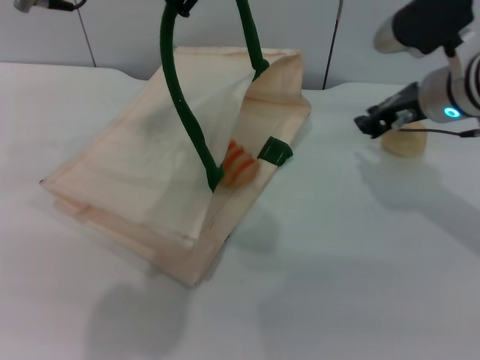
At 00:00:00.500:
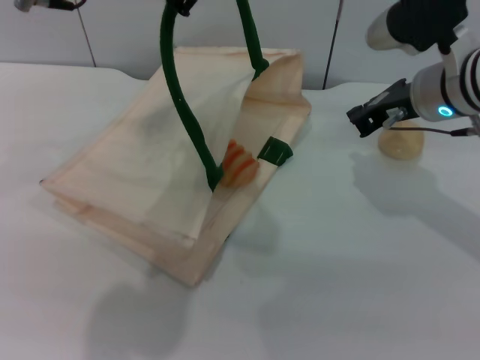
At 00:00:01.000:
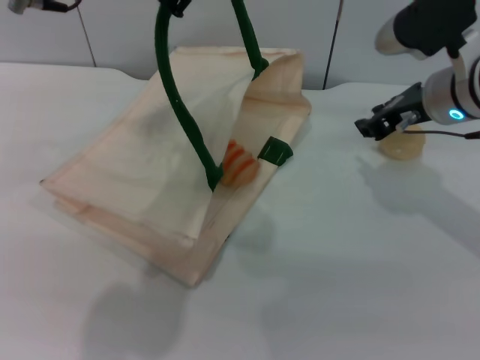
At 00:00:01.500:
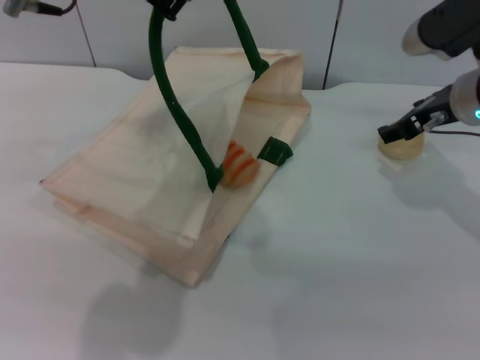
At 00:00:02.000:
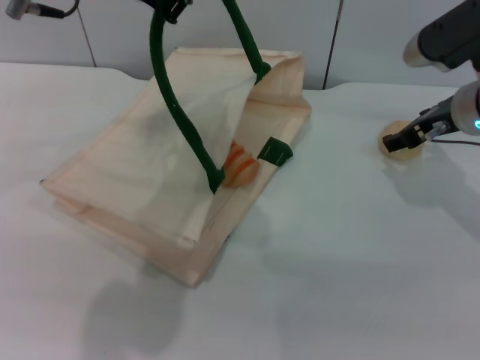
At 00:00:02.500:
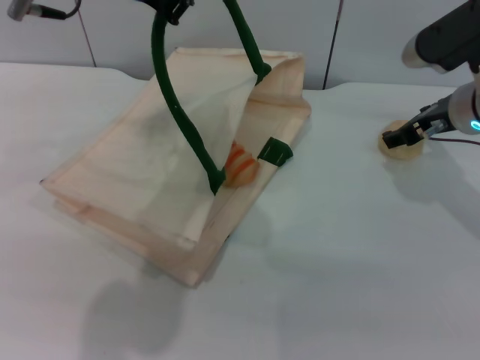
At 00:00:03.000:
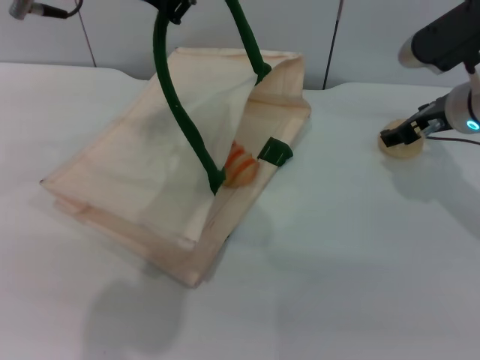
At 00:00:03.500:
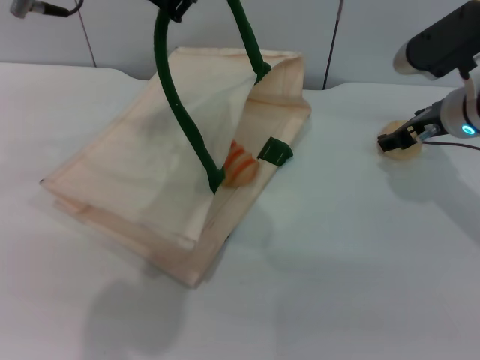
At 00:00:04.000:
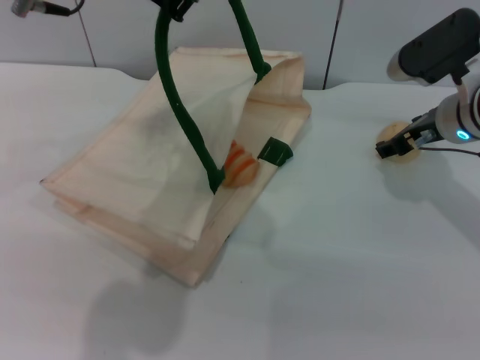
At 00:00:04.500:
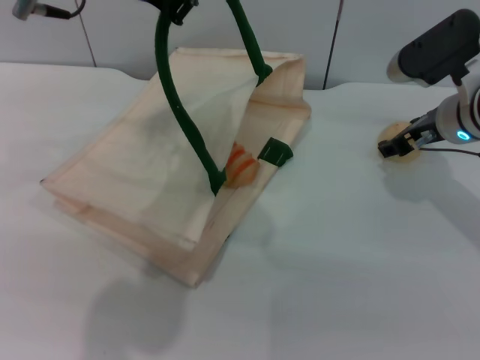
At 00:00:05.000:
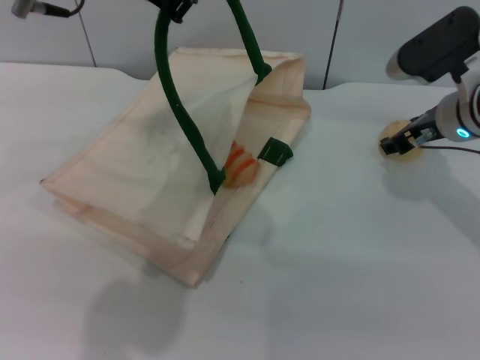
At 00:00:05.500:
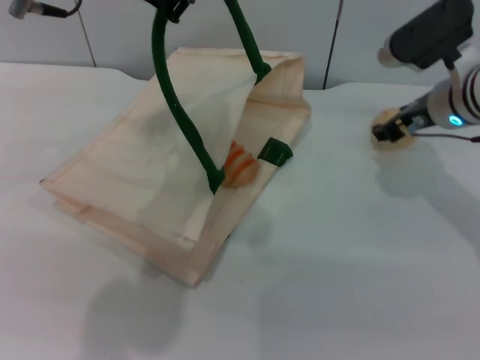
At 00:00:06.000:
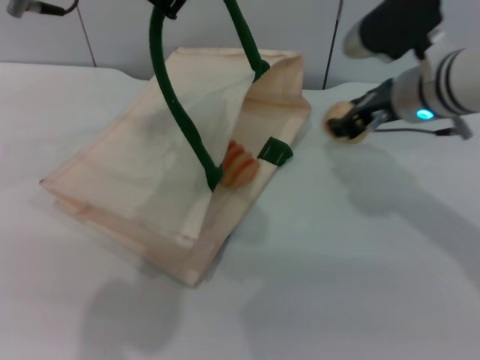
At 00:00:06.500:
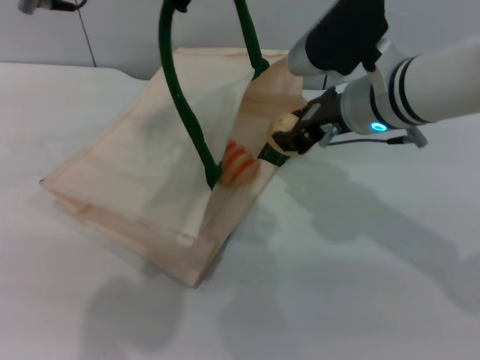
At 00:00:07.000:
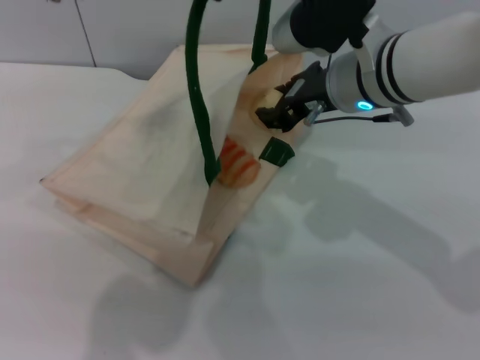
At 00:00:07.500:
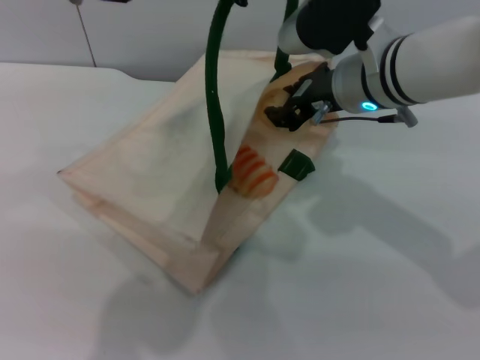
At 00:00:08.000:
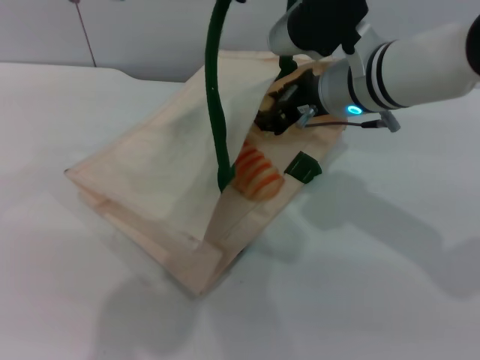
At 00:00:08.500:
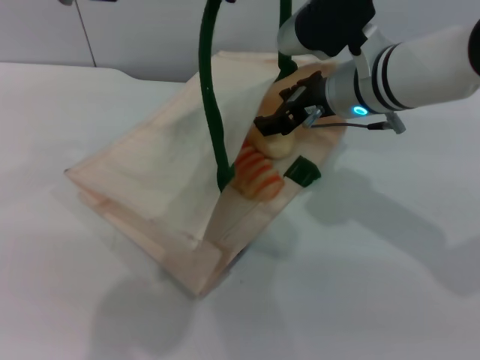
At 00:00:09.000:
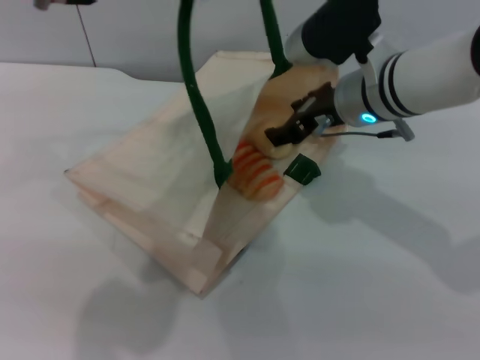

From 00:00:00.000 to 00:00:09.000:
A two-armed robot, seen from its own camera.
Task of the whole recording: pick up the bread and egg yolk pastry from the table and place it in the white handbag.
Step, from 00:00:00.000 to 00:00:05.500: Pick up the egg yolk pastry with the right gripper.
From 00:00:00.000 to 00:00:02.000: The right gripper opens its fingers.
From 00:00:02.000 to 00:00:04.500: The grippers move only a little.
From 00:00:04.500 to 00:00:07.000: The right gripper goes about 15 cm to the left and upward, and closes its fingers.
From 00:00:07.000 to 00:00:09.000: The right gripper opens up.

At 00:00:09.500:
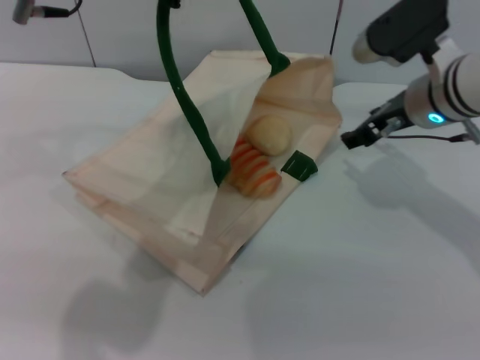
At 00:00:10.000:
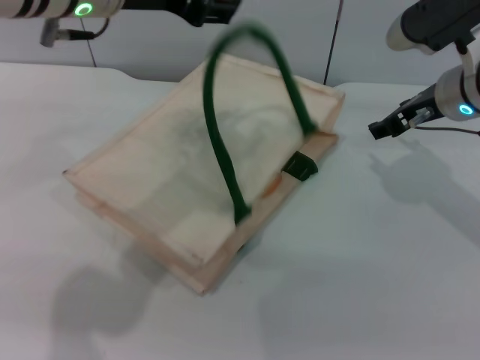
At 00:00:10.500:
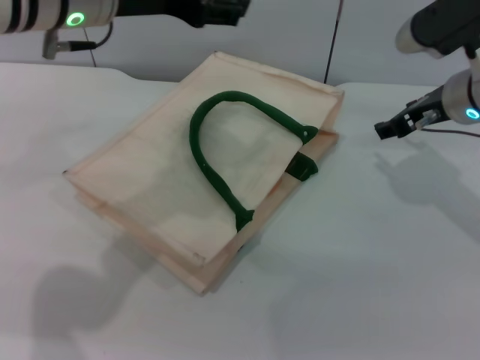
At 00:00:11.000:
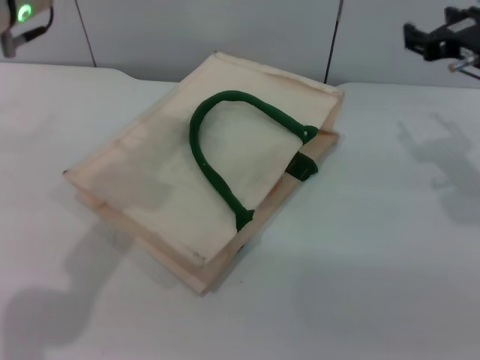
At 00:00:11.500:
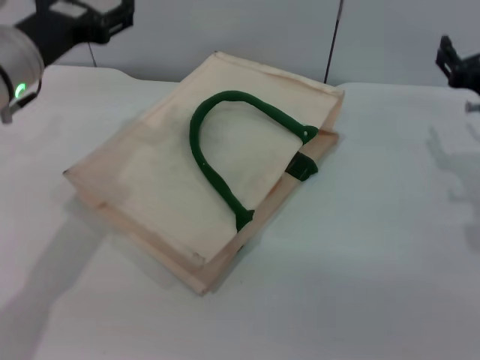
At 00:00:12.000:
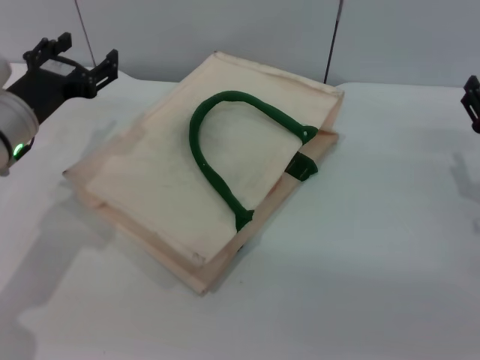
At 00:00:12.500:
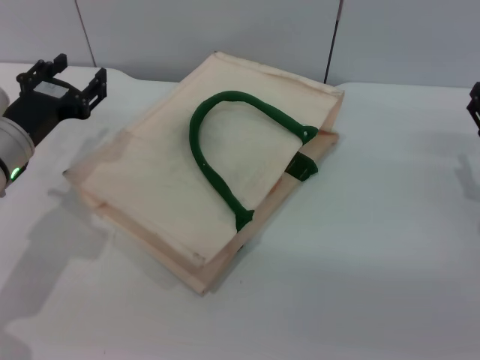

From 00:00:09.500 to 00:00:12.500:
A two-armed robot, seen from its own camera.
Task of the whole recording: pick up the bread and egg yolk pastry from the table and place it in the white handbag.
Step, from 00:00:09.500 to 00:00:10.500: Lower the woven bag with the left gripper to close it.
From 00:00:09.500 to 00:00:11.000: The right gripper goes approximately 5 cm to the right, while the left gripper travels to the left and downward by approximately 10 cm, and opens up.
From 00:00:11.000 to 00:00:12.500: The right gripper goes approximately 15 cm downward, backward and to the right. Meanwhile the left gripper goes roughly 15 cm downward.
